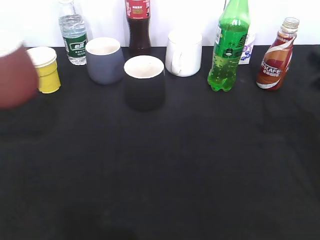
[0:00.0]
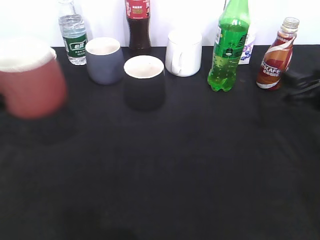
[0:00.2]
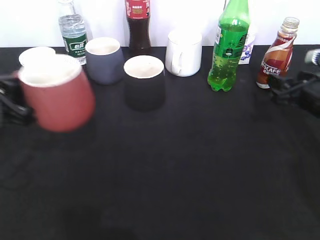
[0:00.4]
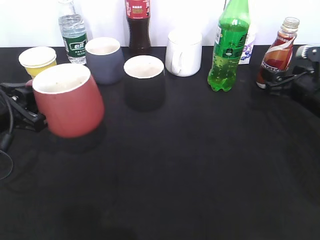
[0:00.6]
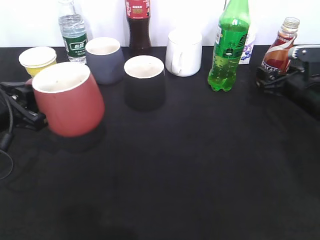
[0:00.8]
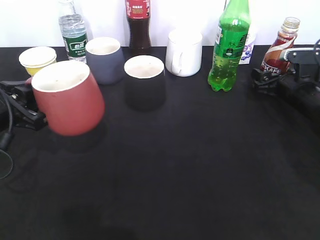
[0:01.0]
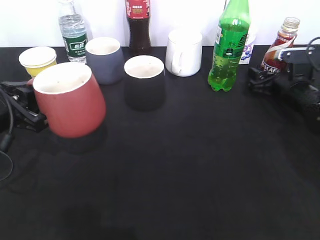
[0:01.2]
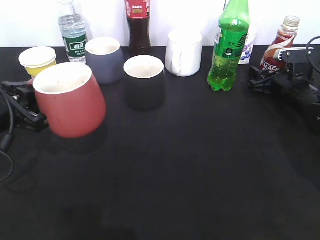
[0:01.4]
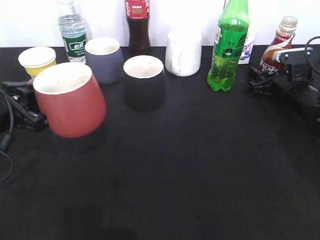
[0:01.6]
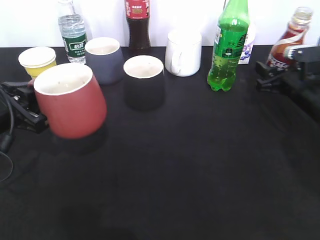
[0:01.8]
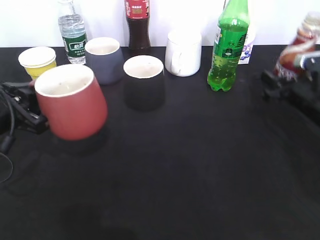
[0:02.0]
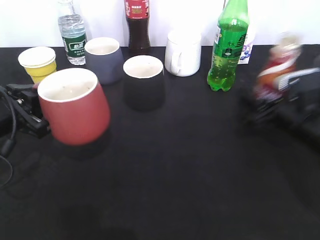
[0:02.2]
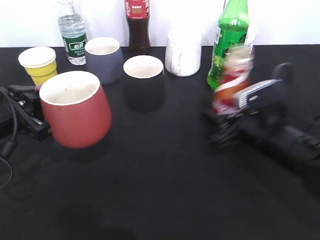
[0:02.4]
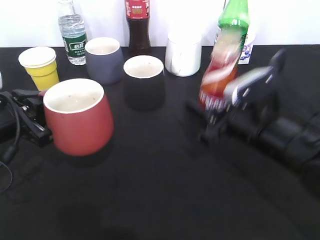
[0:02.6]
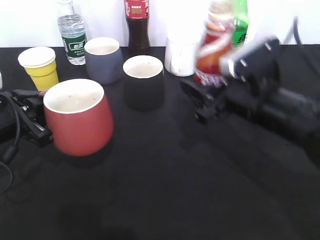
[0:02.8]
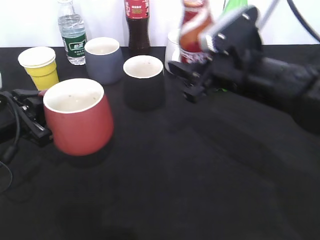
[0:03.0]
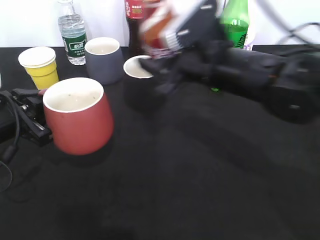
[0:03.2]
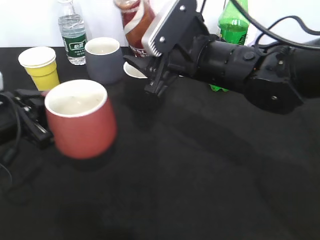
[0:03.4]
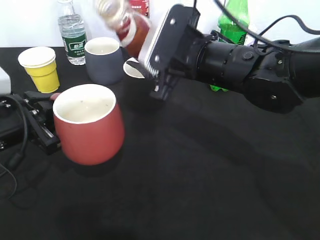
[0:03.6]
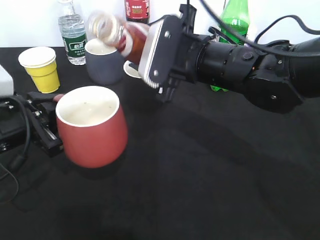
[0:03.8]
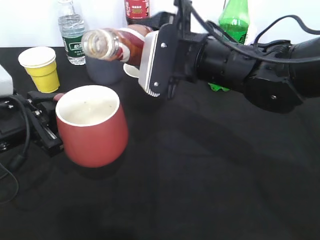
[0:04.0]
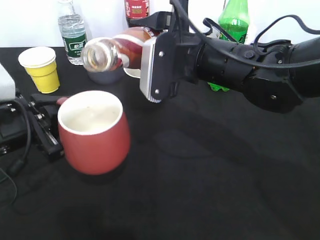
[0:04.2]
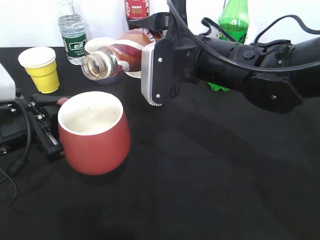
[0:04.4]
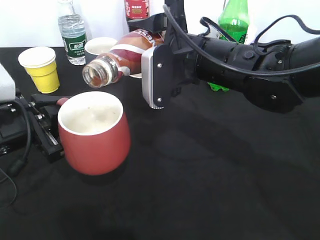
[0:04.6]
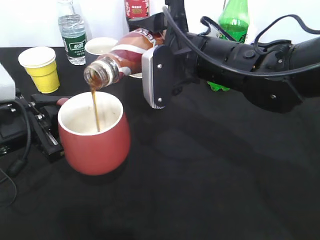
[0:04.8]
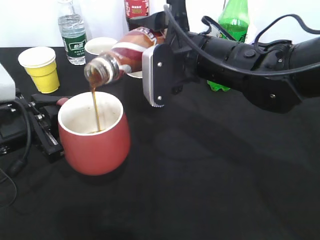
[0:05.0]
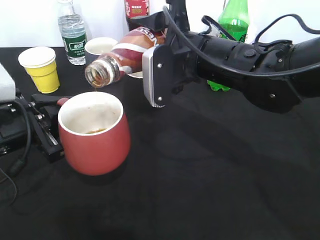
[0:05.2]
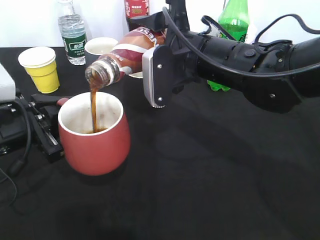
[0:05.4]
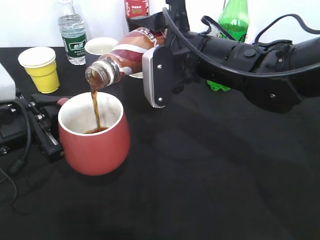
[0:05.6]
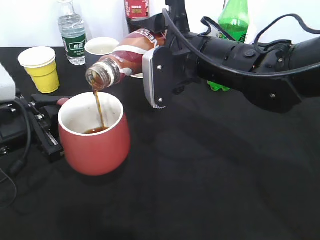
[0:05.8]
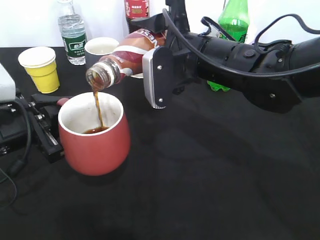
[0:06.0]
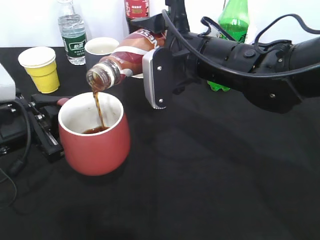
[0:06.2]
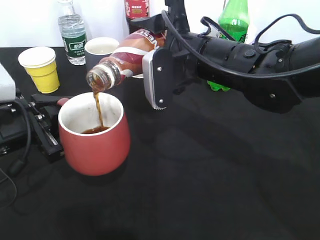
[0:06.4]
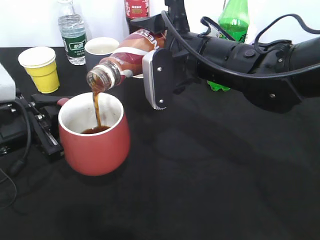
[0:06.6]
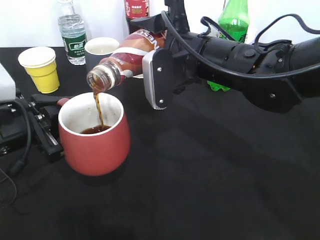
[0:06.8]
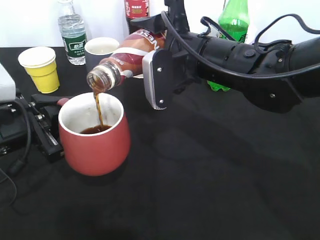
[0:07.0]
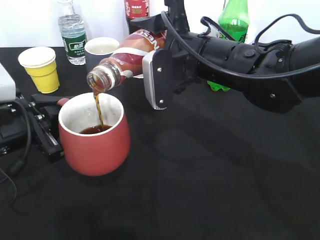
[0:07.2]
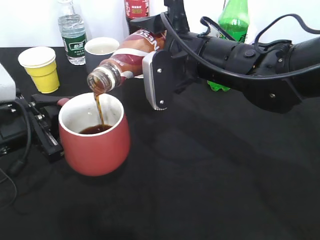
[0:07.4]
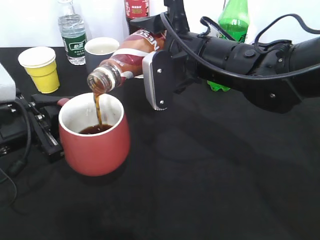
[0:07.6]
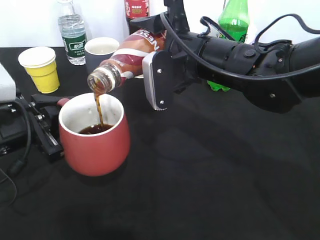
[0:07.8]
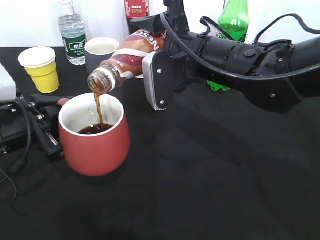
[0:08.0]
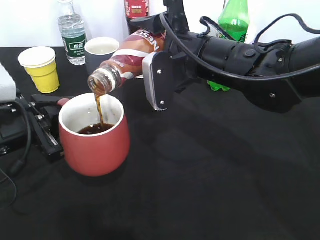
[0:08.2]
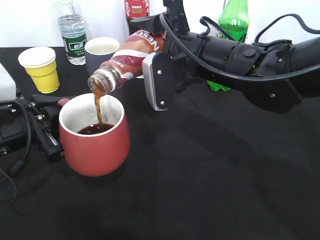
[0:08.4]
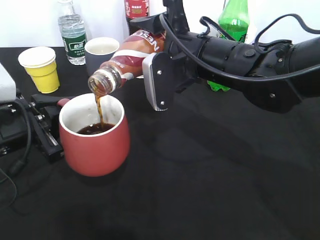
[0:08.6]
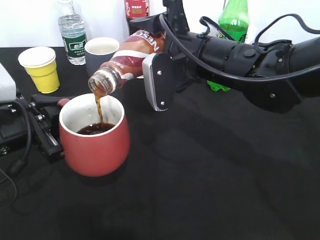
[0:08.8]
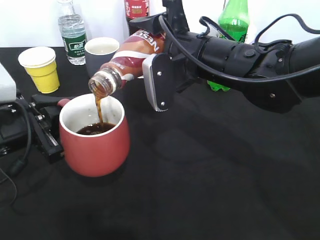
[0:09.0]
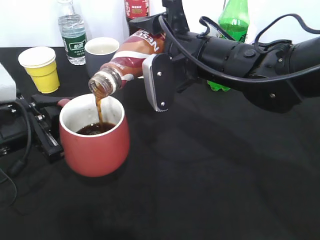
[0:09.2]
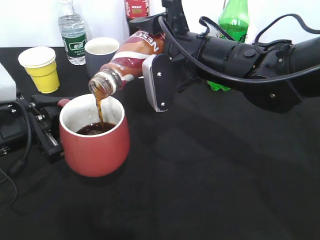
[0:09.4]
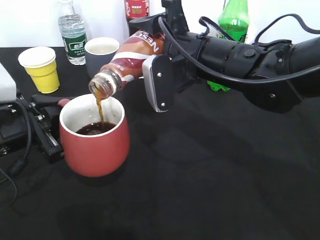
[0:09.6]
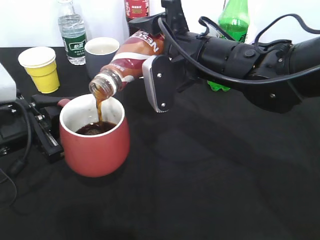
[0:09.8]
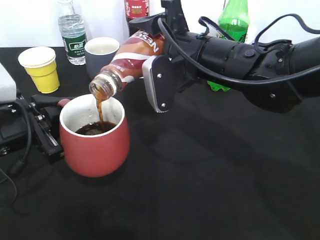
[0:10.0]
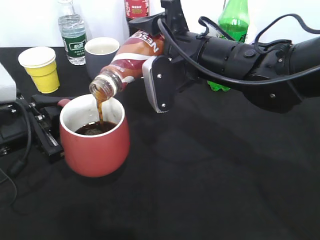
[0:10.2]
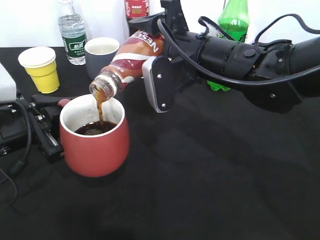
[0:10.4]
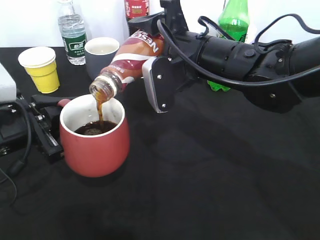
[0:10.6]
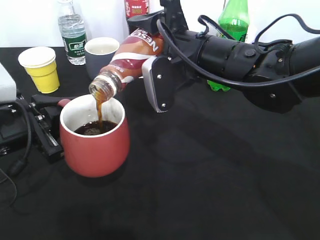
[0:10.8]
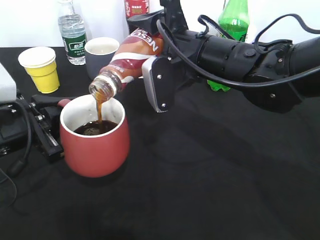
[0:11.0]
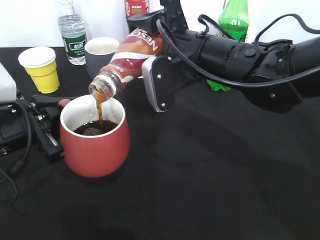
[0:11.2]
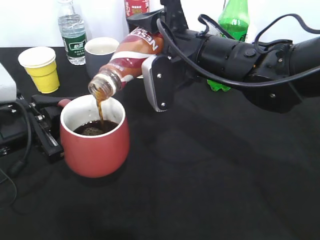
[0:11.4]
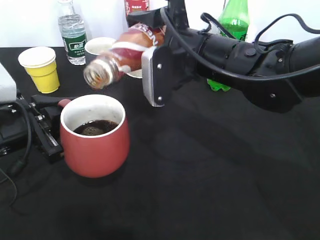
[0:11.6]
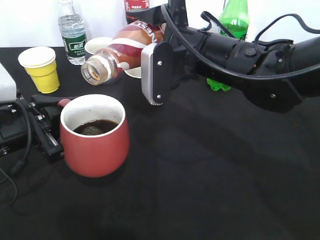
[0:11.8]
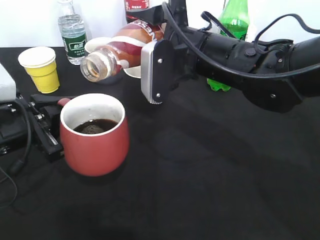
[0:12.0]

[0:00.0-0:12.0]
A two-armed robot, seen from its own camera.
Step, 0:00.0 to 0:01.2: Grasp the bottle with coffee with right gripper.
0:00.0 to 0:01.6: The right gripper moves forward and downward, roughly 20 cm, and closes its fingers. The left gripper shifts roughly 10 cm to the right and downward.
0:01.6 to 0:03.0: The right gripper heads to the left, upward and backward, covering roughly 25 cm.
0:03.0 to 0:04.4: The right gripper moves to the left, about 5 cm.
0:04.4 to 0:06.0: The grippers make only small movements.
0:06.0 to 0:07.6: Both grippers stay about where they are.
0:07.6 to 0:10.4: The two grippers keep their place.
0:10.4 to 0:12.0: The grippers stay close to where they were, moving slightly.

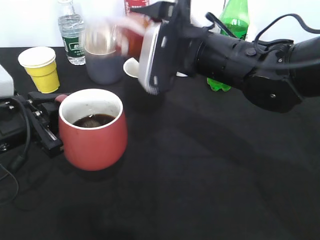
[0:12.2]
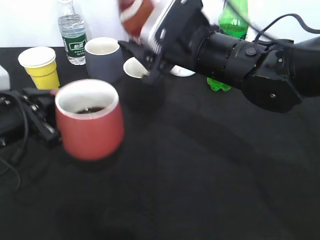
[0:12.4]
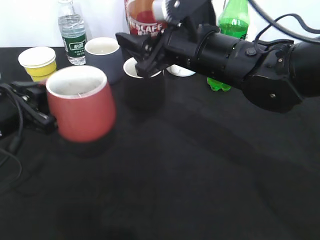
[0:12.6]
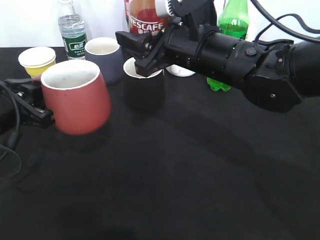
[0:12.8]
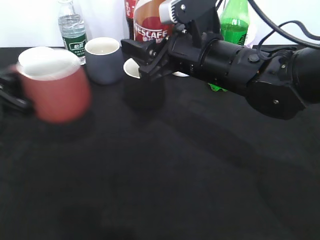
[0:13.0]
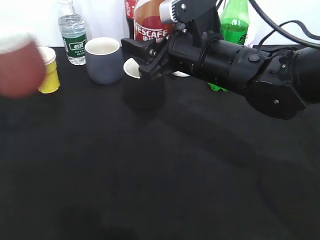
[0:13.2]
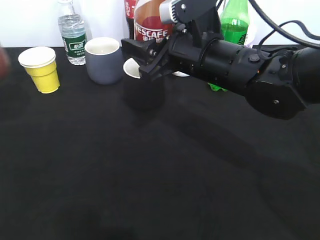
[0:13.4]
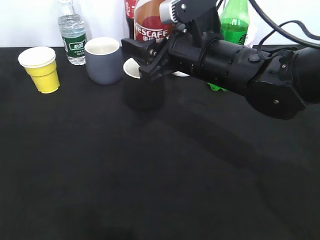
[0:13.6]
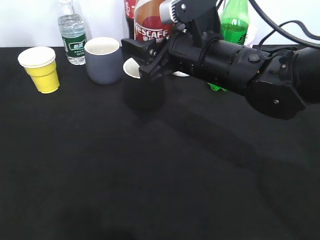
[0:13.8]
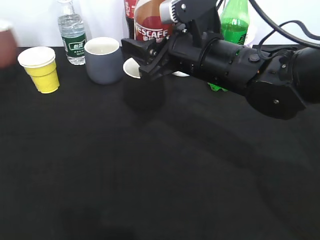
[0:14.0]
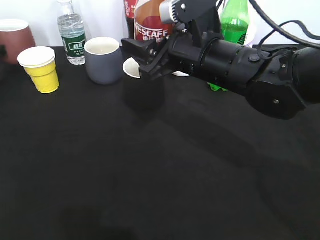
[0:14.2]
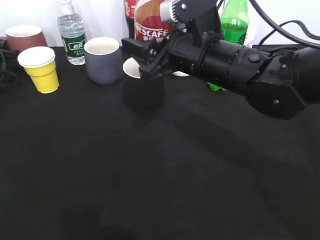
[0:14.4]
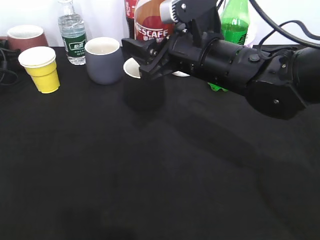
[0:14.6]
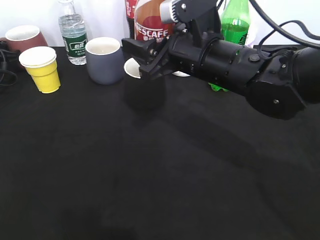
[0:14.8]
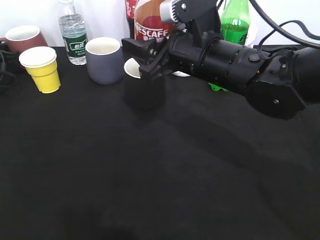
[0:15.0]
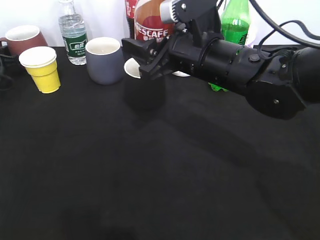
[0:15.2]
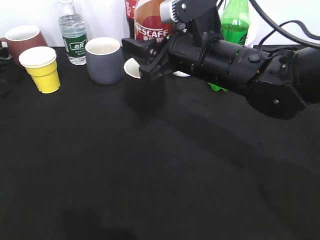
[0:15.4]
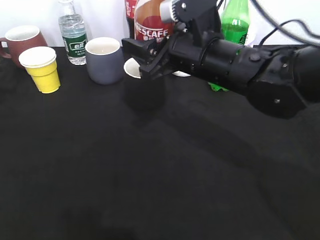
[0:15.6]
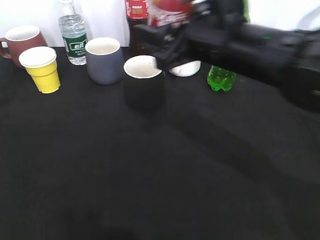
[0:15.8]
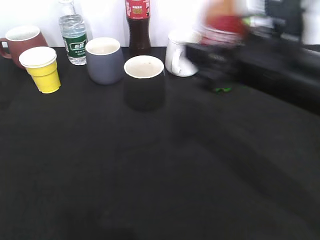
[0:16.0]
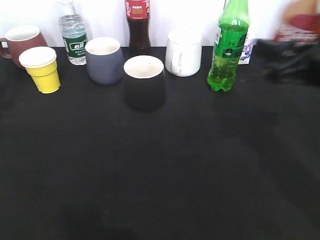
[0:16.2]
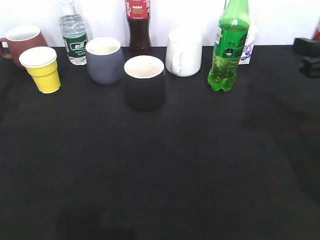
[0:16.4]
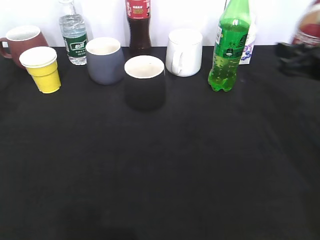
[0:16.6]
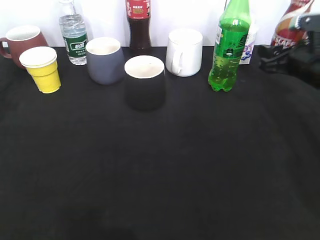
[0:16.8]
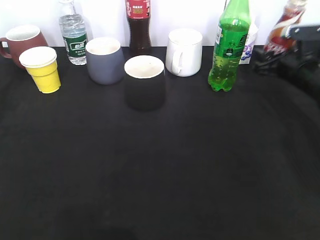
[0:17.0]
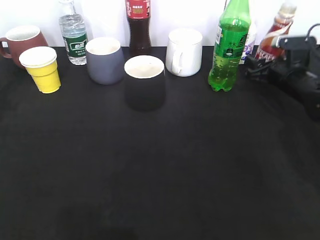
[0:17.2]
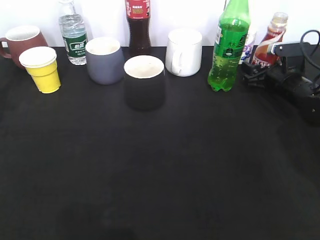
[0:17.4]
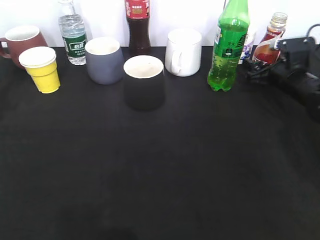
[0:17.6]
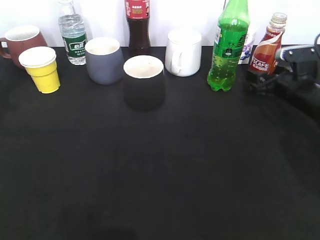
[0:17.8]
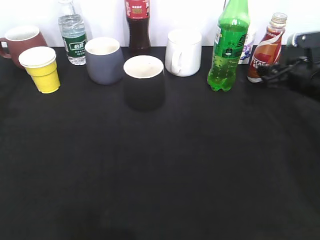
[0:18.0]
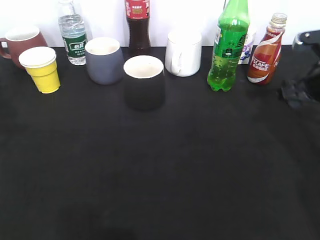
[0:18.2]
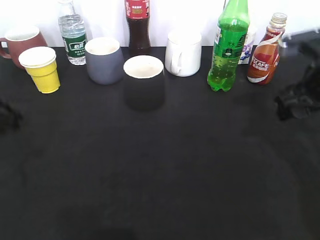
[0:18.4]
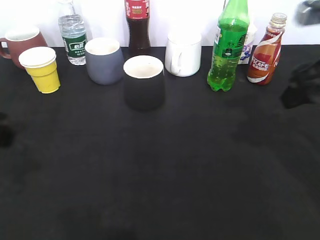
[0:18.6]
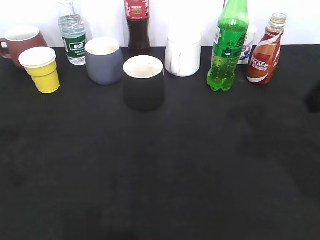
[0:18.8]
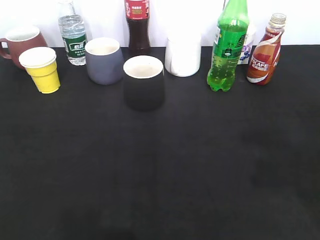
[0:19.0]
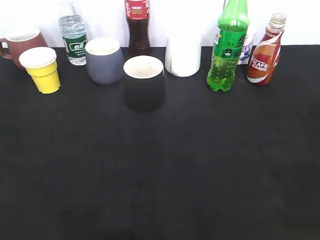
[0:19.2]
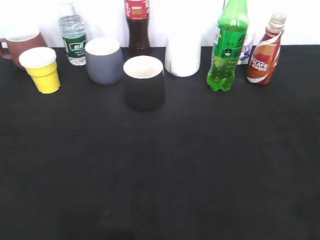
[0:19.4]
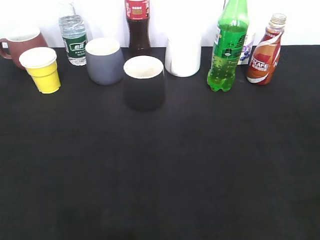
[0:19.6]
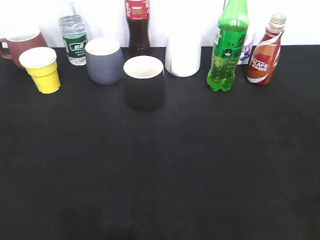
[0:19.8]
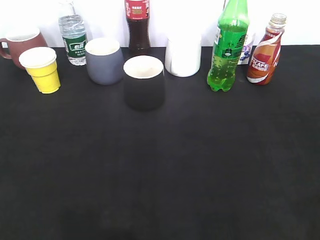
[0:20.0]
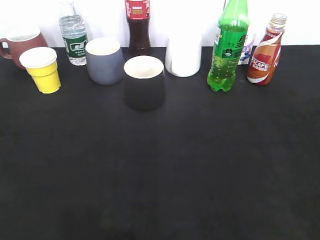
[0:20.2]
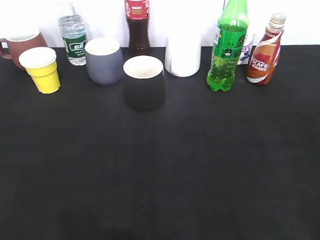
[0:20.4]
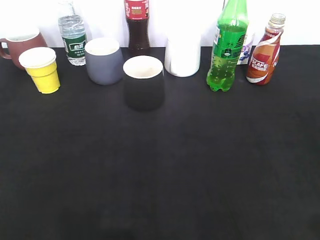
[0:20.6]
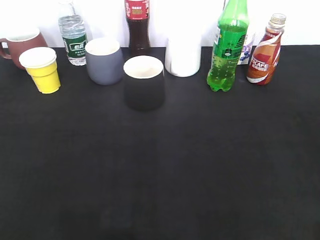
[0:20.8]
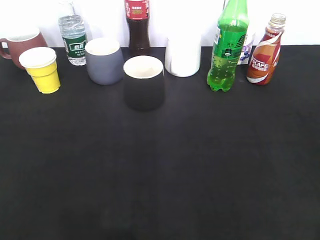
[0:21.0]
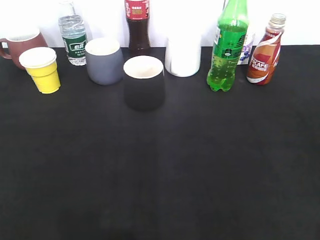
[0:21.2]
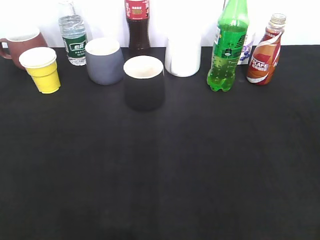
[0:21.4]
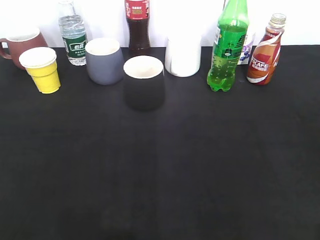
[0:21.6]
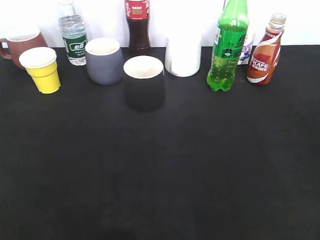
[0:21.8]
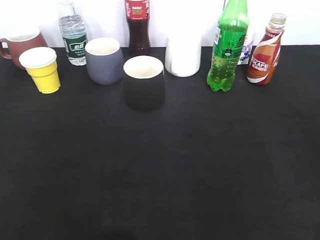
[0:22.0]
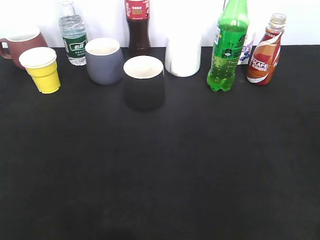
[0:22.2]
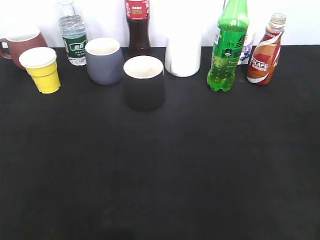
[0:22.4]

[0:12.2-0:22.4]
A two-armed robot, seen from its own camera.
Step, 0:12.4 to 0:14.8: Place the red cup on the table with left gripper.
Step, 0:15.2 to 0:17.6: Place the coffee bottle on the table with right gripper.
0:12.2 to 0:13.6: The left gripper is displaced to the left by some 20 cm.
0:13.6 to 0:15.2: The left gripper goes approximately 20 cm forward and downward, and opens.
0:15.2 to 0:16.6: The right gripper travels to the right by roughly 20 cm. Meanwhile the left gripper goes some 20 cm backward and upward.
0:16.6 to 0:18.0: The right gripper is displaced downward by roughly 5 cm, and opens its fingers.
0:18.0 to 0:19.4: The right gripper travels backward and upward by roughly 35 cm, and closes and opens again, while the left gripper travels backward by approximately 25 cm, and opens its fingers.
0:21.0 to 0:22.4: The two grippers keep their place.
